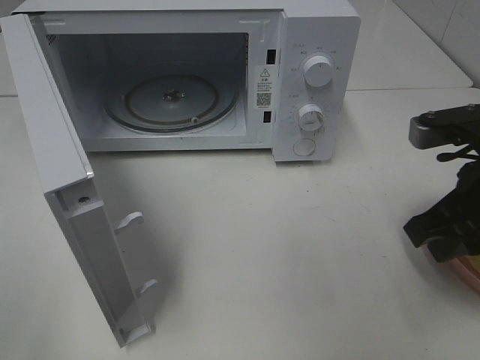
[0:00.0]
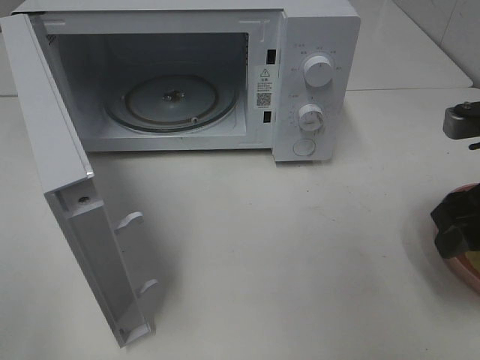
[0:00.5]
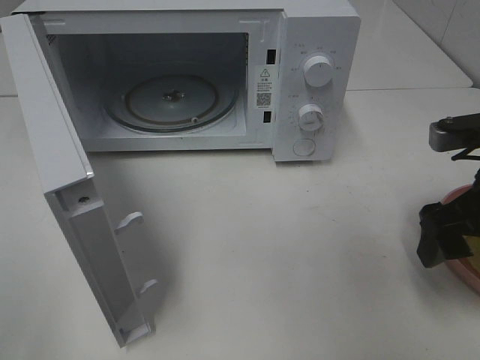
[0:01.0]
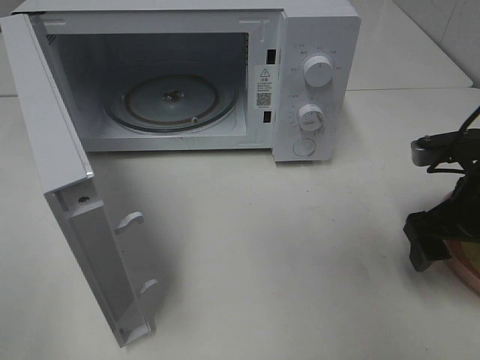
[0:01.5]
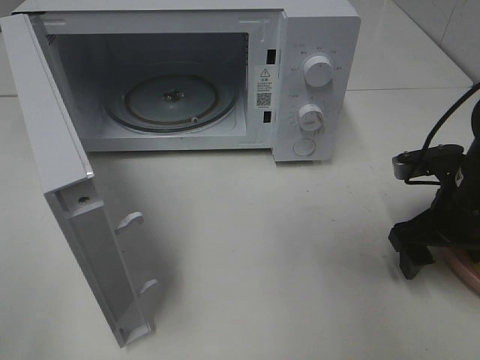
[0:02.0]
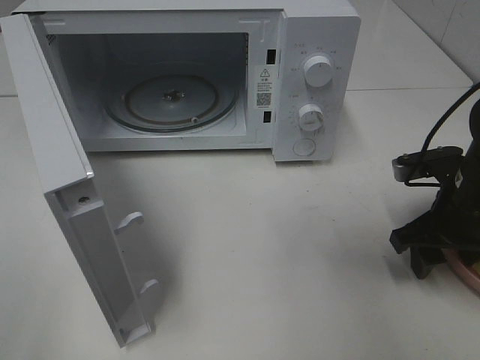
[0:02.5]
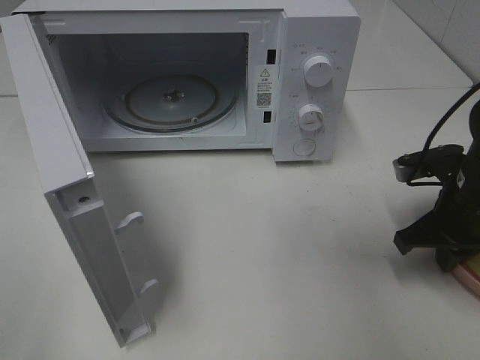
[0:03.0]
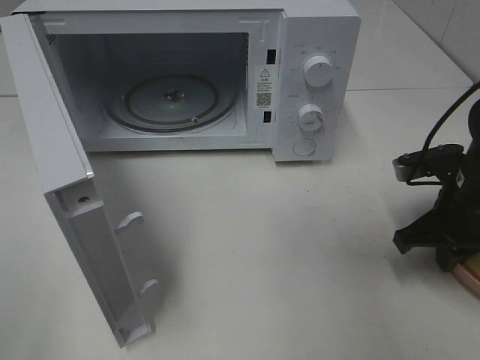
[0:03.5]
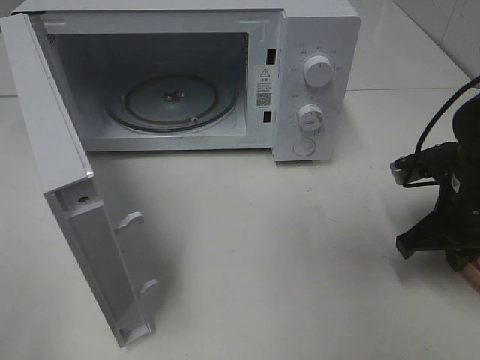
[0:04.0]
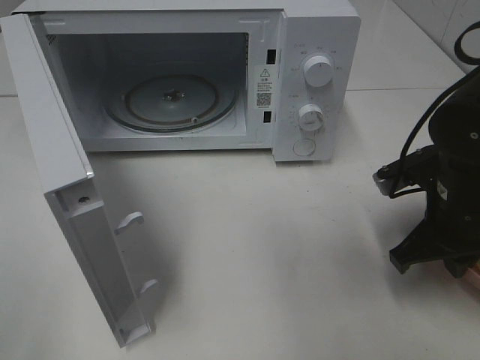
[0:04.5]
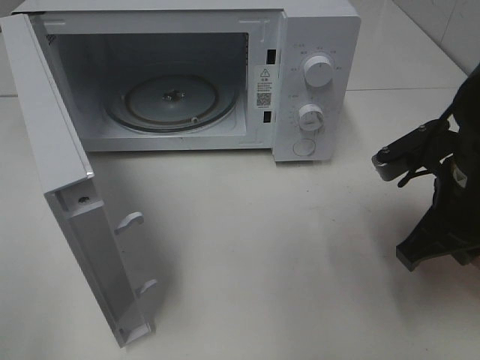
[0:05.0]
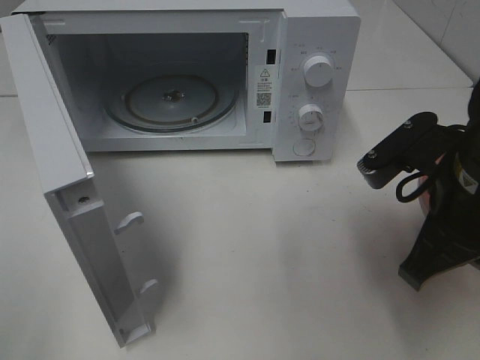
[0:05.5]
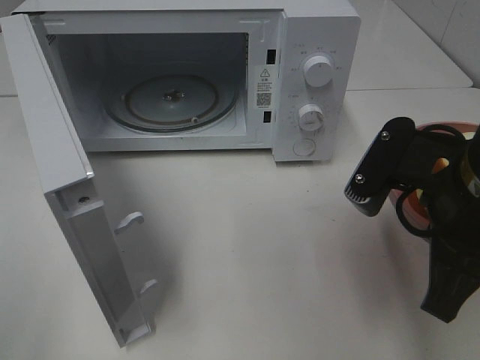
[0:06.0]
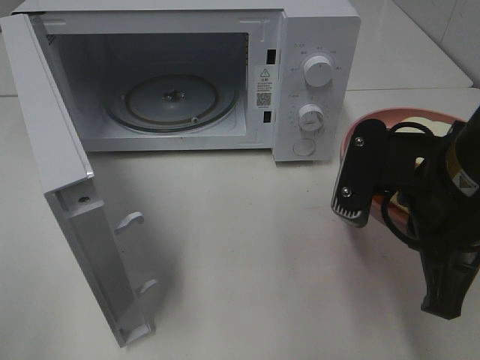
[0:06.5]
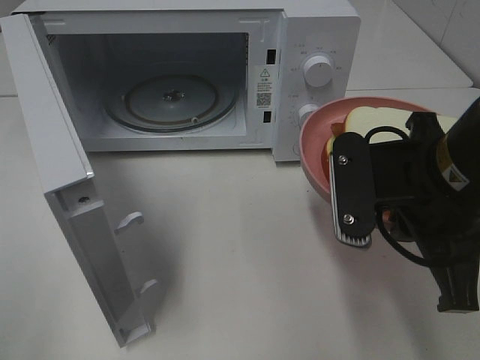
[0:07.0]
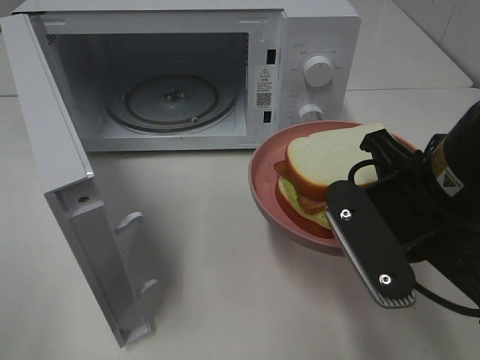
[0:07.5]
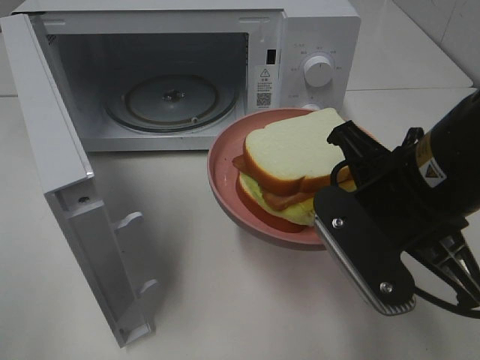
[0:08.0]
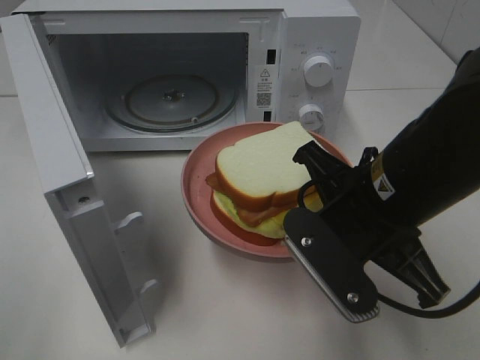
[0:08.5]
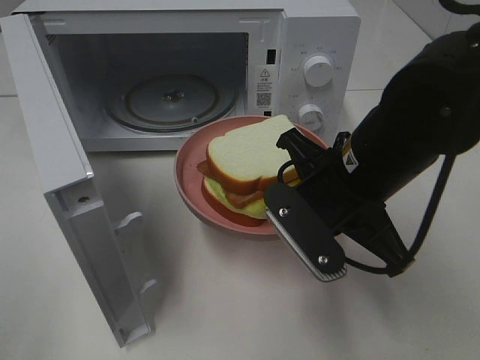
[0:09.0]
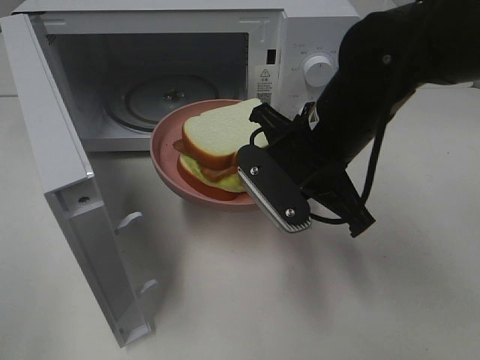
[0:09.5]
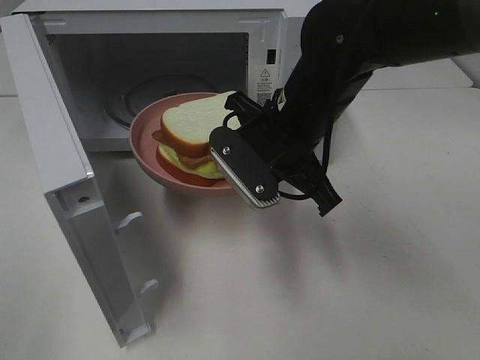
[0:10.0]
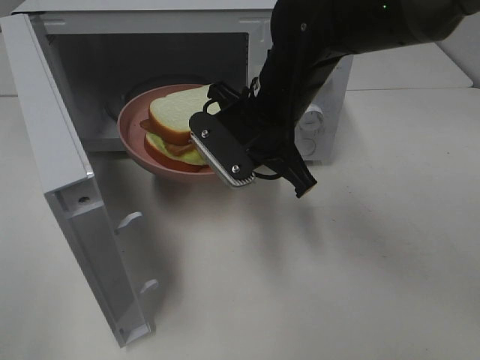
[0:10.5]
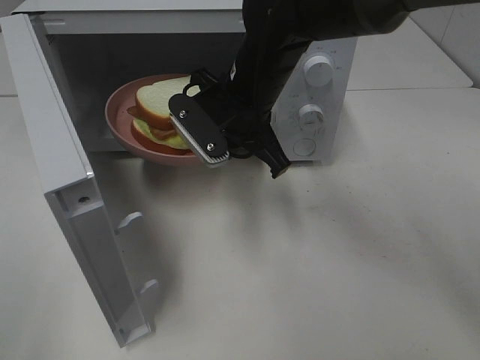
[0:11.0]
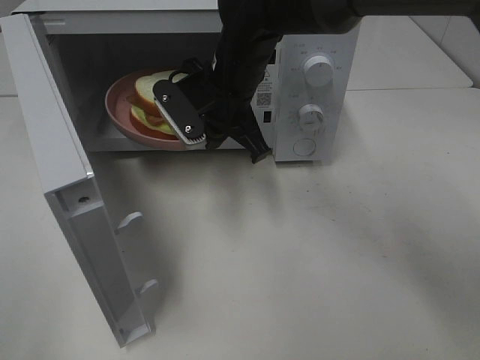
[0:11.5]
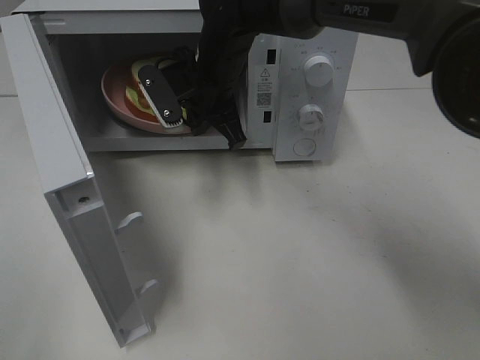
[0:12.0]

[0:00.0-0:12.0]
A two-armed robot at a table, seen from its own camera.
Task of the whole recording: Heat Sandwich.
Step, 0:00.0 to 0:03.5: Right hand: grab the plate with the sandwich.
0:00.0 to 0:02.0: The right gripper travels downward and forward by some 10 cm, and opens.
0:02.0 to 0:04.0: The right gripper closes its fingers.
0:04.0 to 0:06.0: The right gripper goes roughly 15 cm upward, backward and to the left.
0:08.0 to 0:10.0: The right gripper goes some 15 cm forward and to the left.
0:10.0 to 0:12.0: The right gripper heads forward and to the left, covering about 15 cm.

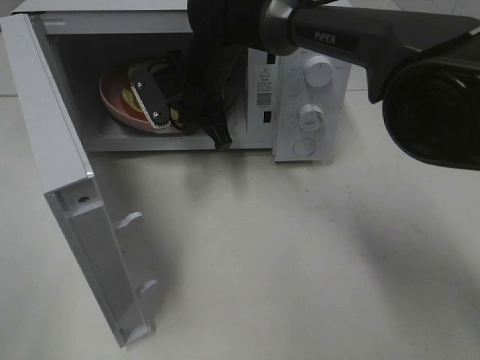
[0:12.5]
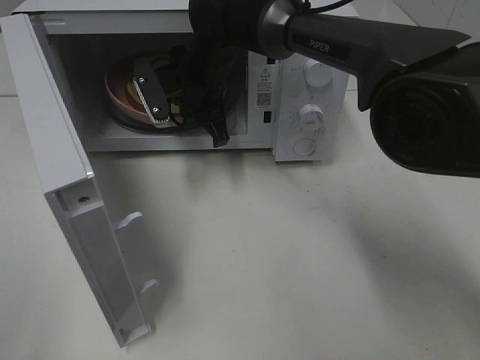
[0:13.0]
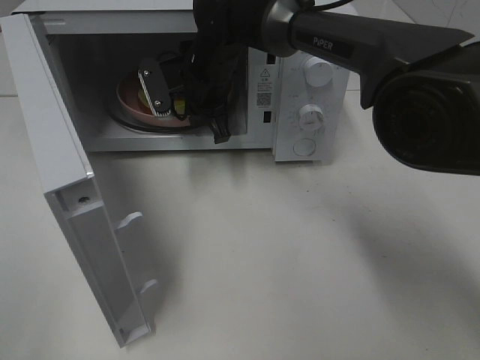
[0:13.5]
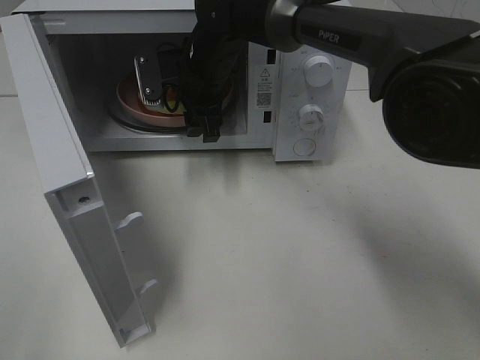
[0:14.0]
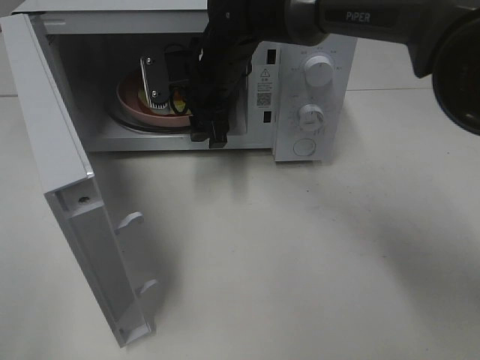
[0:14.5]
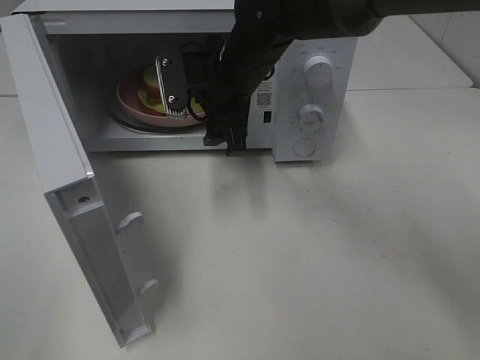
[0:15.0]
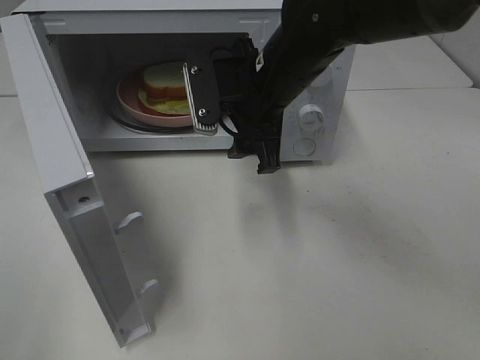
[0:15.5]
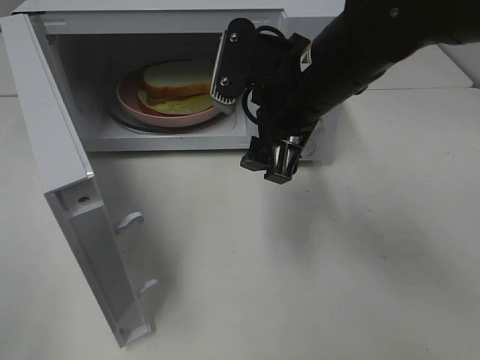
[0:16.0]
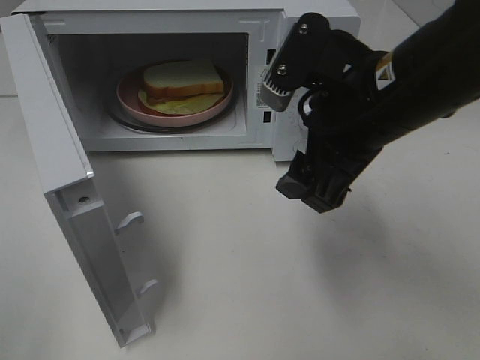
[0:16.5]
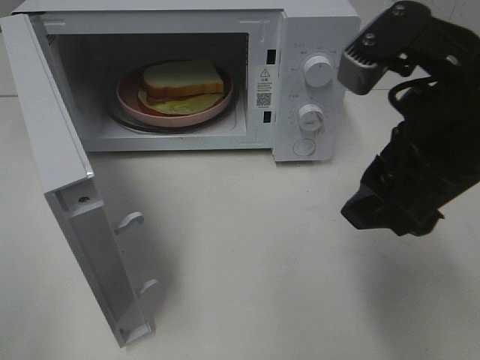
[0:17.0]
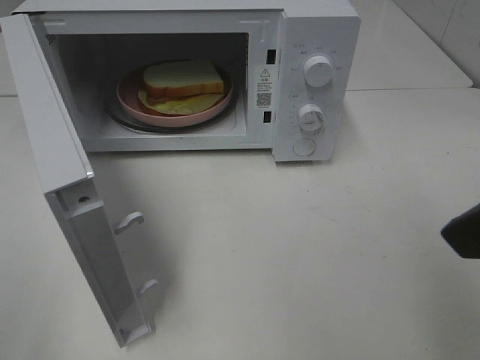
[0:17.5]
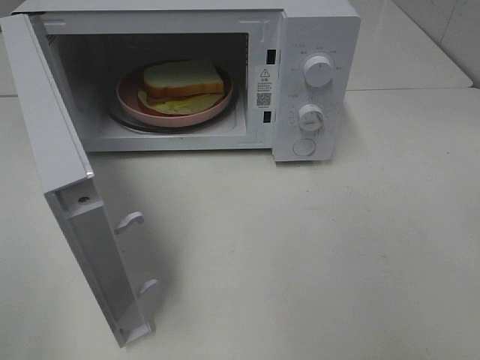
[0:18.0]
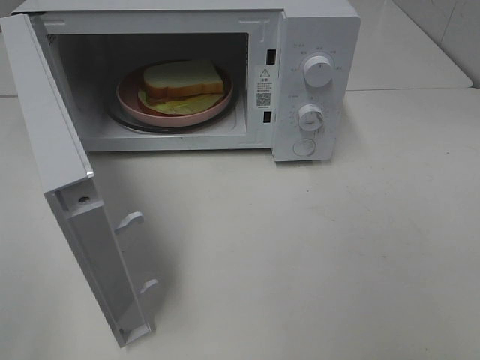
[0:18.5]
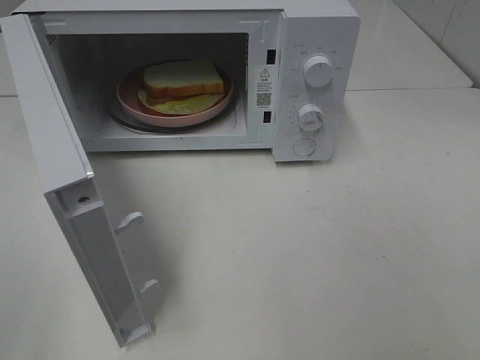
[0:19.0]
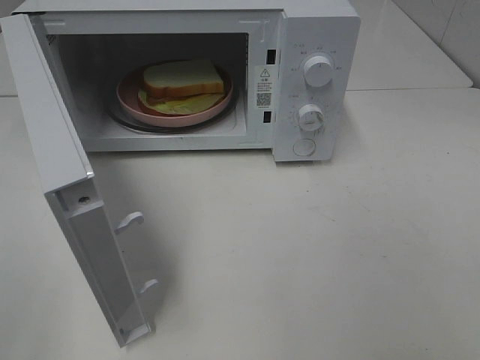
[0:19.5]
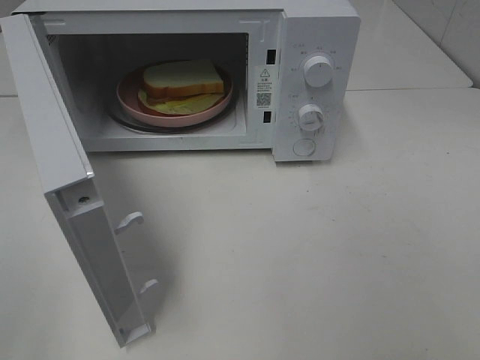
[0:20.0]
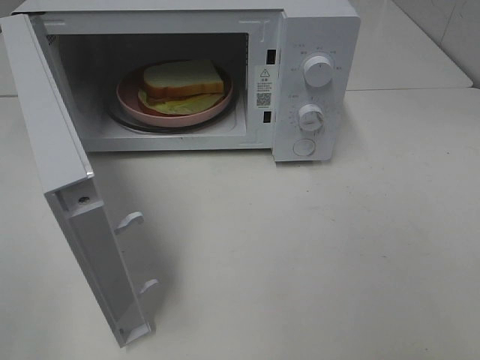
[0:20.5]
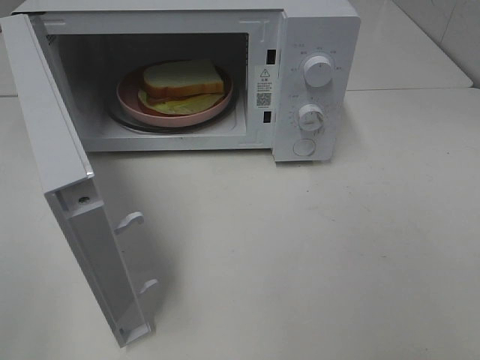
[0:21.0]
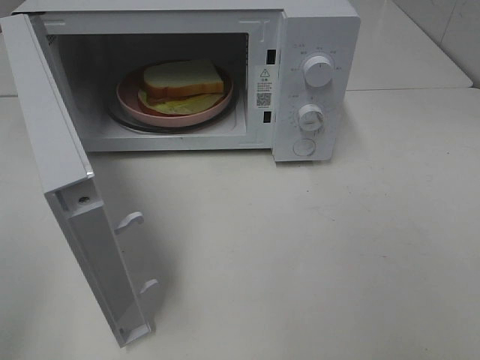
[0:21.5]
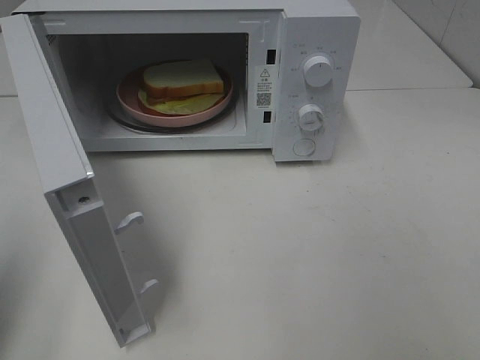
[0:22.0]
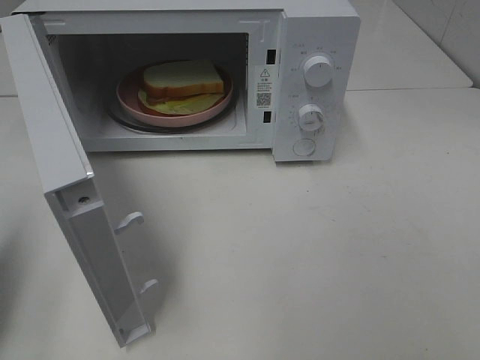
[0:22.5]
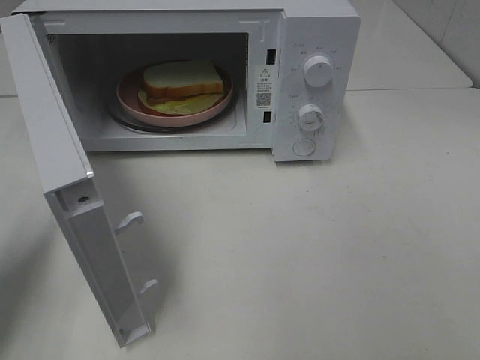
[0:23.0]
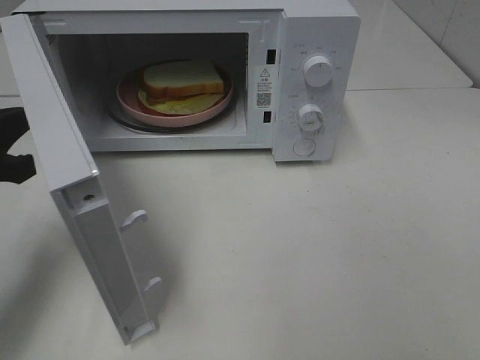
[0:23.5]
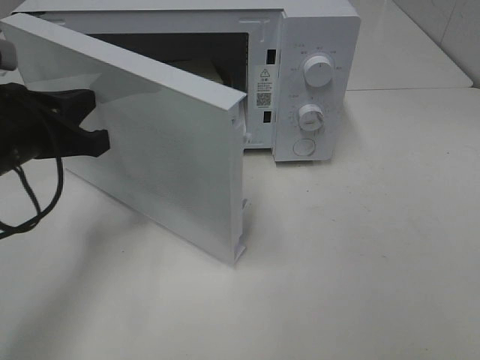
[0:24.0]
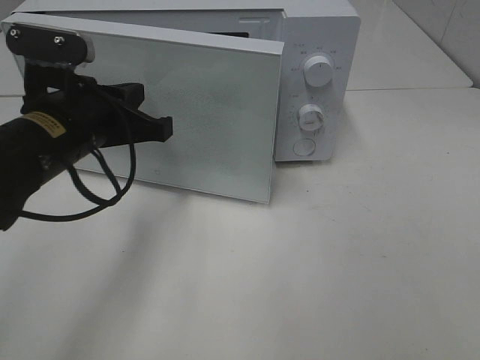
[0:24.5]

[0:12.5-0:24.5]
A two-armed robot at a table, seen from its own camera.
Task of the whole recording: Heat Sandwich.
Step, 0:12.5 to 0:15.0: Right hand: place the plate in the microwave.
0:12.5 to 0:14.5: The right gripper opens its fingers.
0:14.5 to 0:16.5: The right gripper shifts some 25 cm backward and to the right.
0:16.5 to 0:18.5: The right gripper shifts some 25 cm backward and to the right.
0:20.5 to 0:22.5: The left gripper is displaced forward by roughly 15 cm, and closes its fingers.
0:22.5 to 0:24.5: The left gripper heads to the right and forward, covering roughly 20 cm.

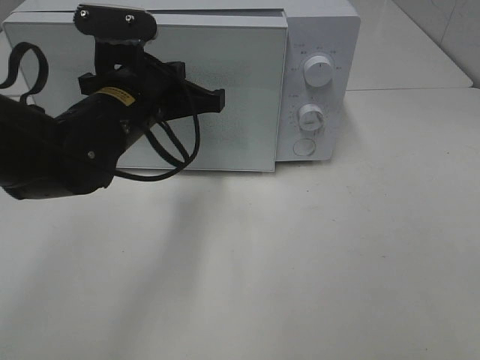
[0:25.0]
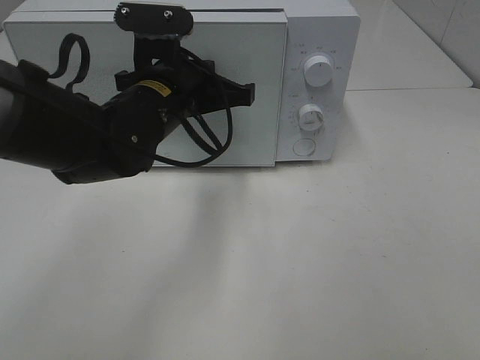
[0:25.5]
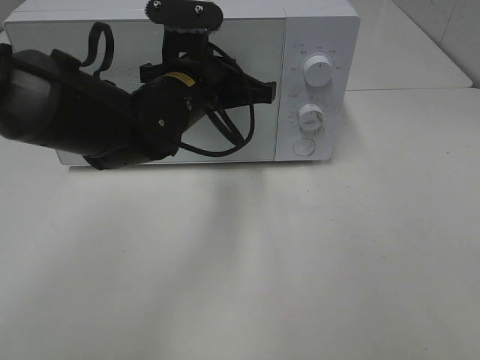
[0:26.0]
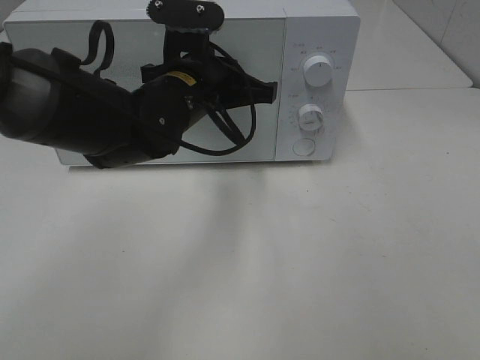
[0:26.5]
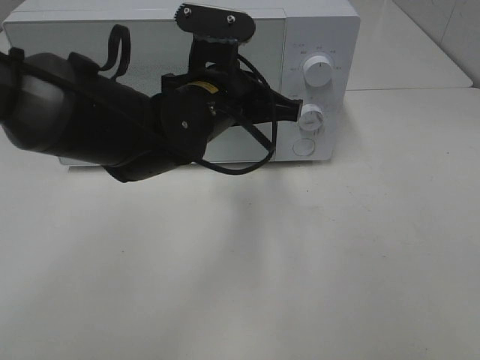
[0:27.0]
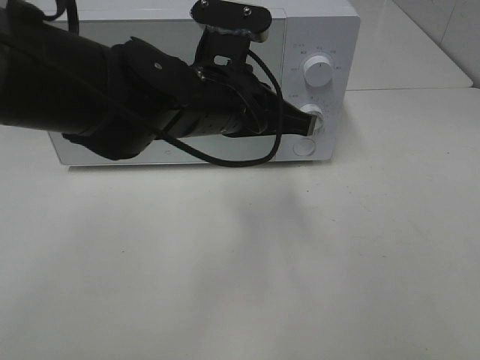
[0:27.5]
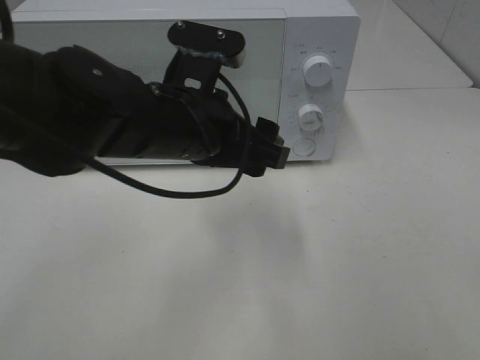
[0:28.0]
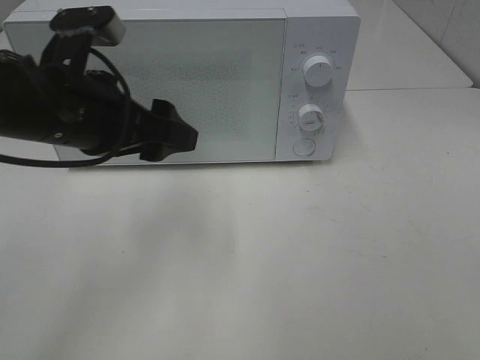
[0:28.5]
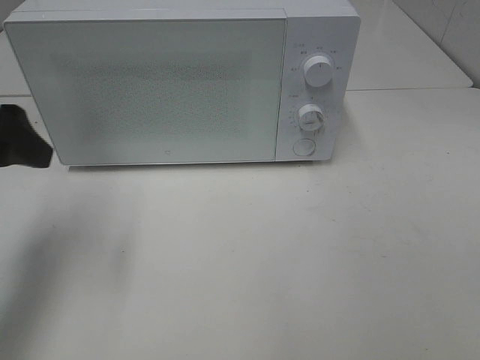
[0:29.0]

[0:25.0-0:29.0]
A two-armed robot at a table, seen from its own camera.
Task of the whole recording: Heat Sandwich.
Step, 0:25.0 to 0:27.0: Left hand: close the microwave door.
0:25.0 to 0:27.0: The left gripper is displaced to the right by some 10 cm.
0:27.0 to 0:29.0: The left gripper goes roughly 25 cm to the left, and opens.
